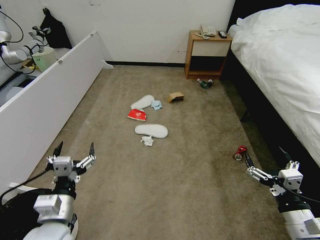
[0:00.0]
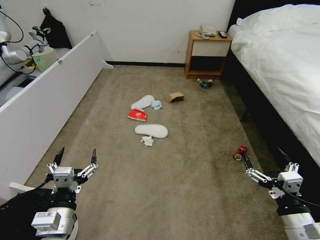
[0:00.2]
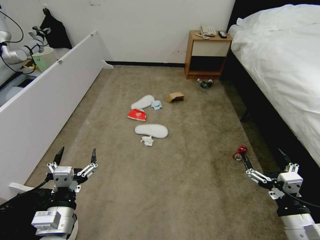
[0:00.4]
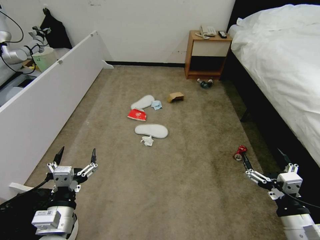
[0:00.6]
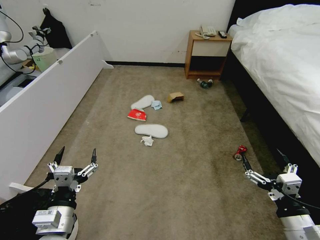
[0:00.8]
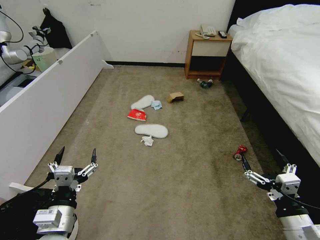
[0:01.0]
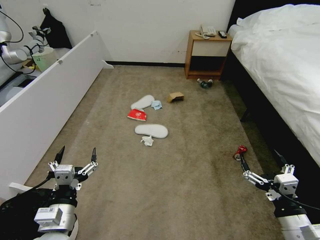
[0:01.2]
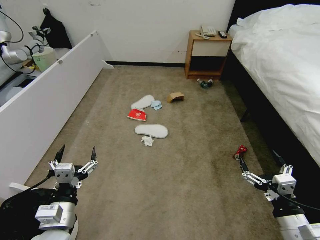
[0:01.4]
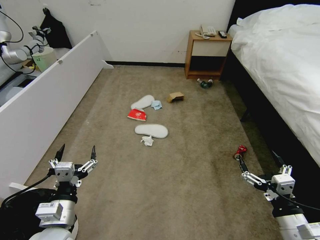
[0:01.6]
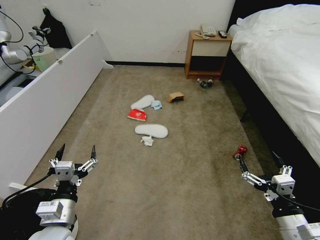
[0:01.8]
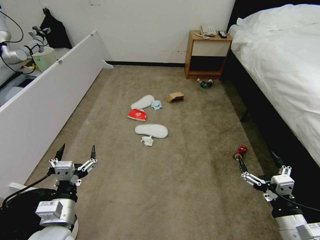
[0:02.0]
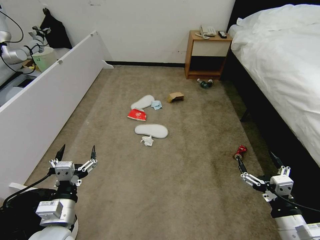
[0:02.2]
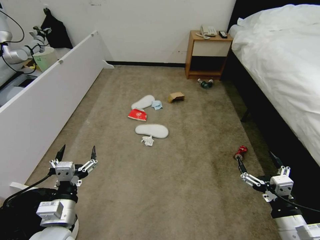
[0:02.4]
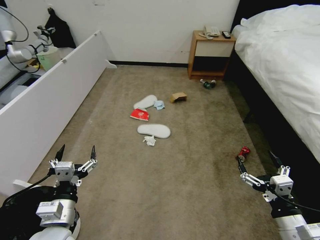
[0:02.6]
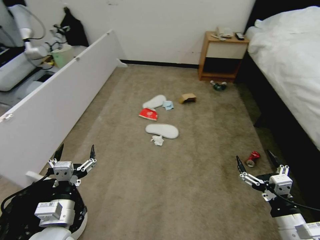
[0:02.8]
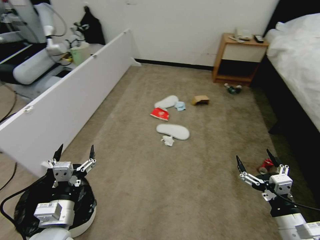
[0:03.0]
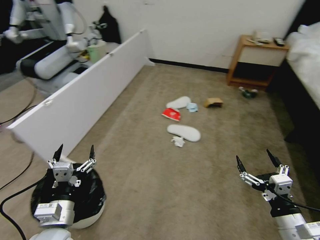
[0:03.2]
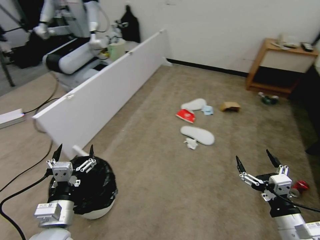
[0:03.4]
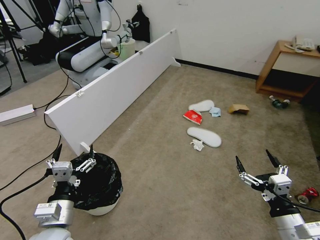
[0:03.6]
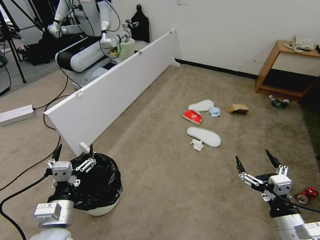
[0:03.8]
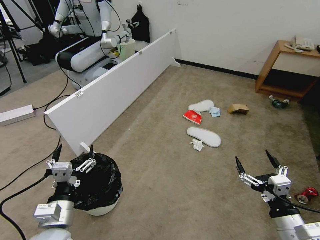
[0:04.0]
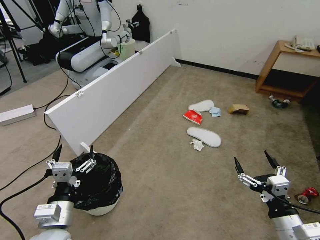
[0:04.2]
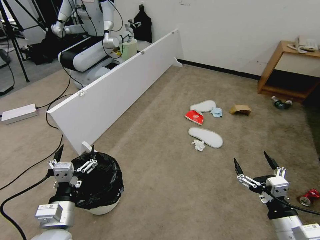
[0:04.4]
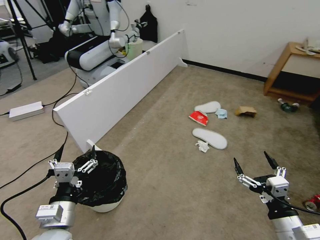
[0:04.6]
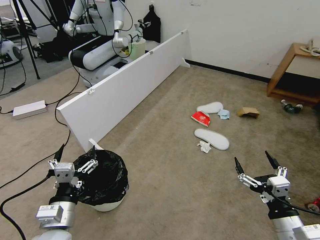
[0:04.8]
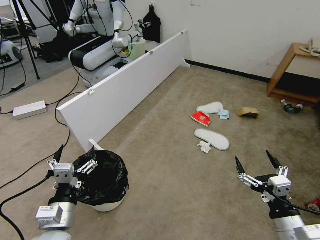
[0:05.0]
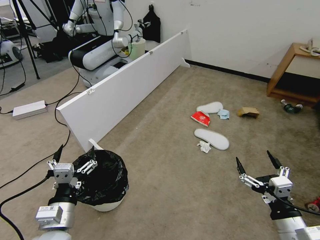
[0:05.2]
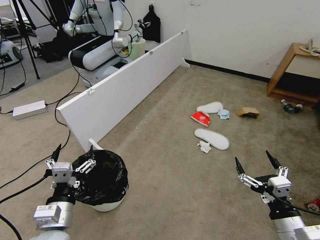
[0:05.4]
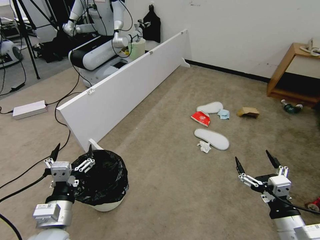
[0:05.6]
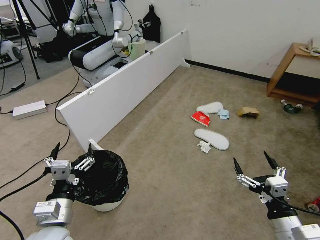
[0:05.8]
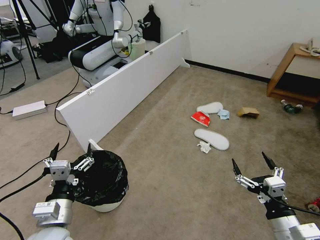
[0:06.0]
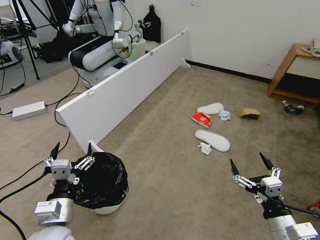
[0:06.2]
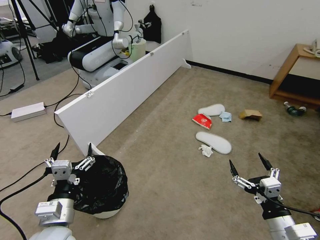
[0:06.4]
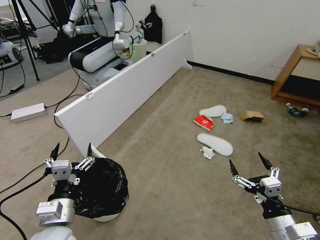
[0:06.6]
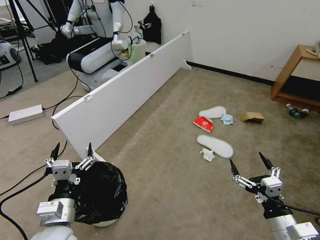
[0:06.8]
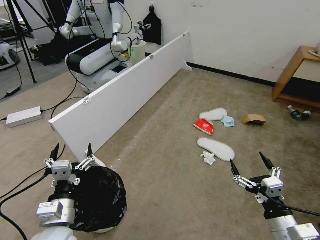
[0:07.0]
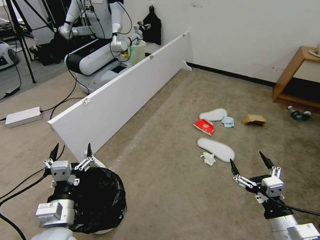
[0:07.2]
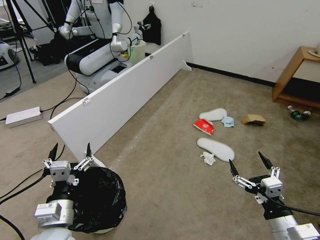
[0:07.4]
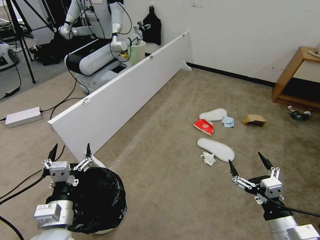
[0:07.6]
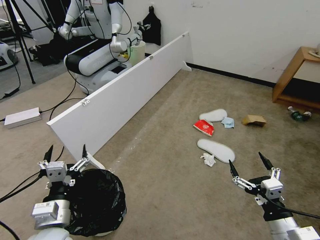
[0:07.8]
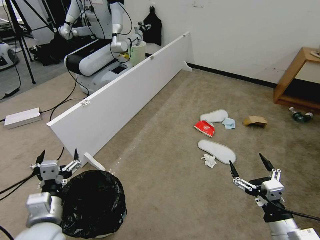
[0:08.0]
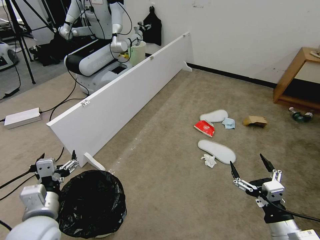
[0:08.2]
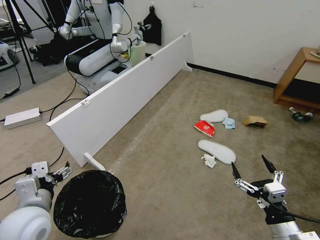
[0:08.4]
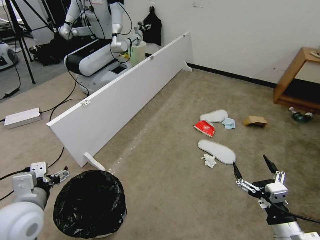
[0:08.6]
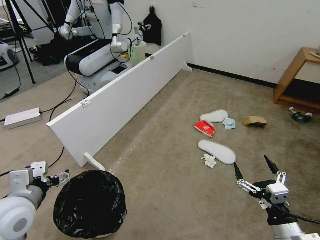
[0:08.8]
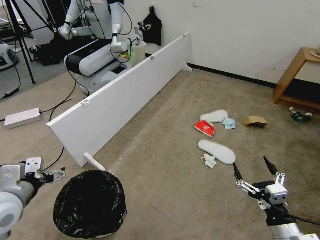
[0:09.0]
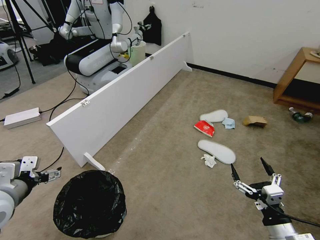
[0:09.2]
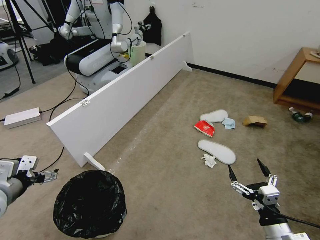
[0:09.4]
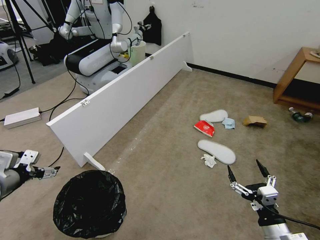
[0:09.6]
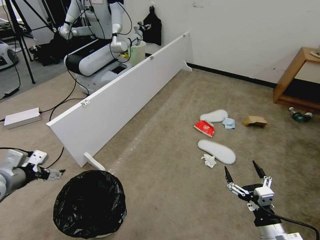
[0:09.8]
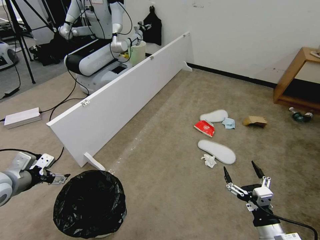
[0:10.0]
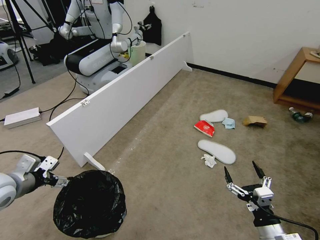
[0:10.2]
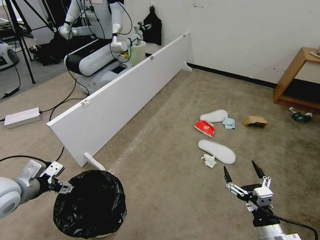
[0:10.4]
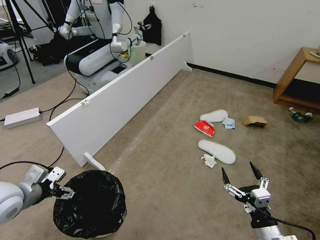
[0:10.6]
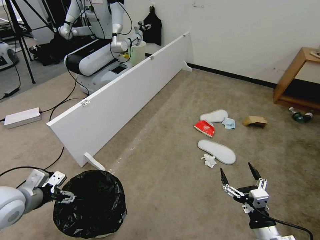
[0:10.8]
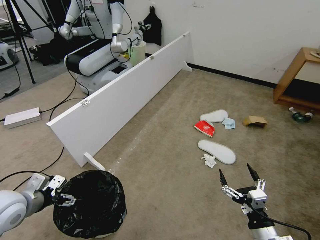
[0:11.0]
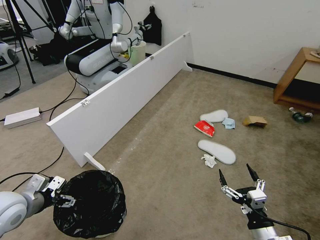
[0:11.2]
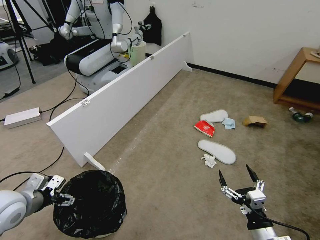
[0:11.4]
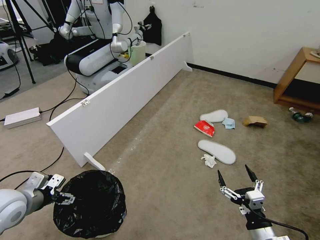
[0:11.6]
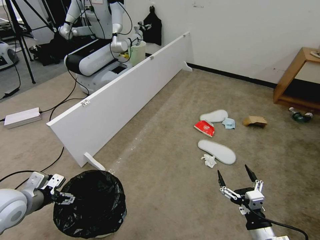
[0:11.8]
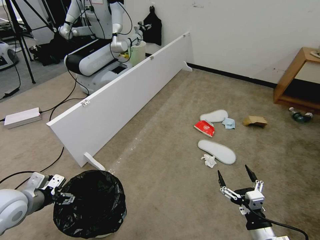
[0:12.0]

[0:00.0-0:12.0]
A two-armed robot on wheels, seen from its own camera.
Task of the whole recording: Pick up the trash bin, then pick up the garbage from the floor and place it into the trash bin.
0:07.6 to 0:09.0: The left gripper goes approximately 15 cm to the left, upward and forward.
0:09.0 to 0:10.4: The left gripper changes place by about 5 cm.
0:10.4 to 0:12.0: The left gripper heads downward, covering about 5 cm.

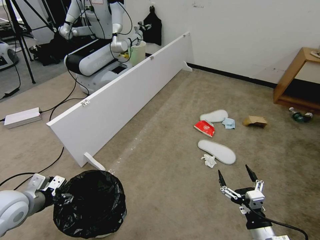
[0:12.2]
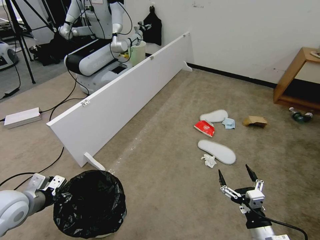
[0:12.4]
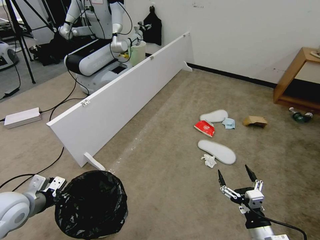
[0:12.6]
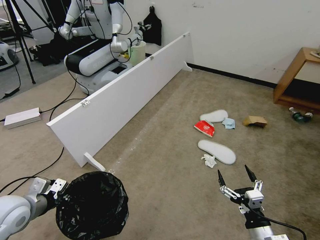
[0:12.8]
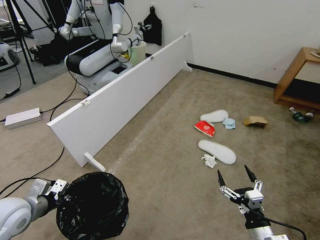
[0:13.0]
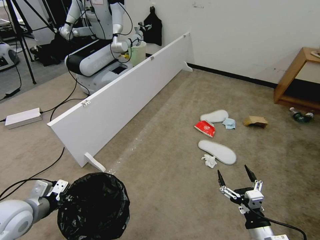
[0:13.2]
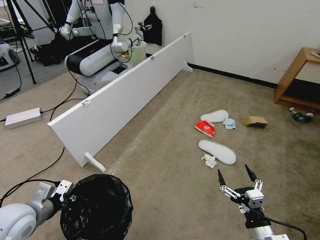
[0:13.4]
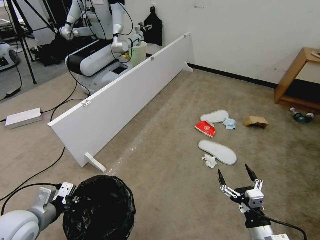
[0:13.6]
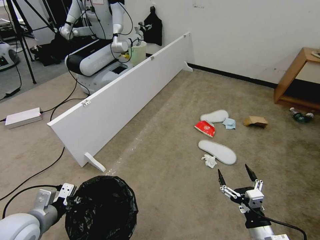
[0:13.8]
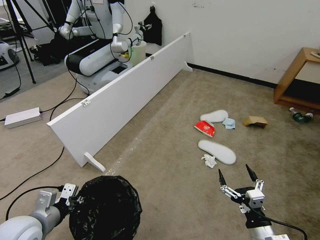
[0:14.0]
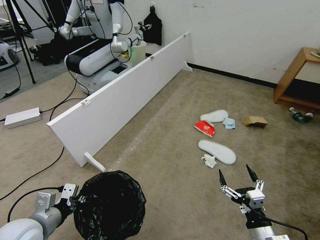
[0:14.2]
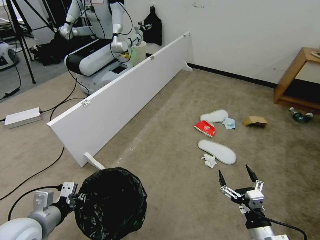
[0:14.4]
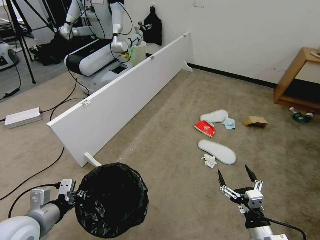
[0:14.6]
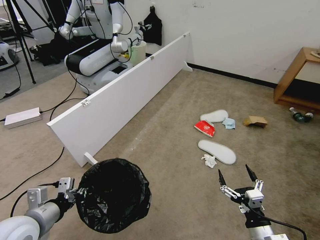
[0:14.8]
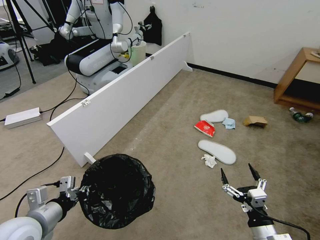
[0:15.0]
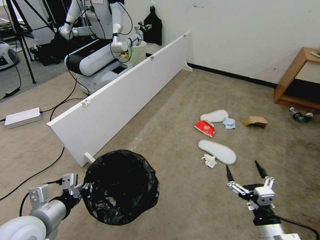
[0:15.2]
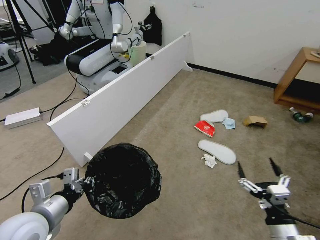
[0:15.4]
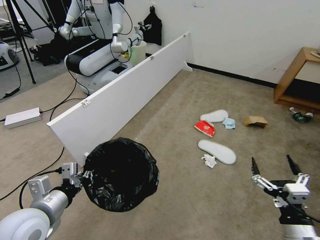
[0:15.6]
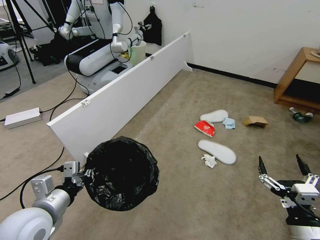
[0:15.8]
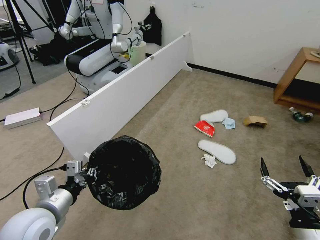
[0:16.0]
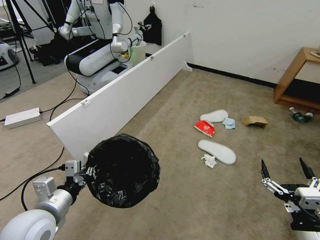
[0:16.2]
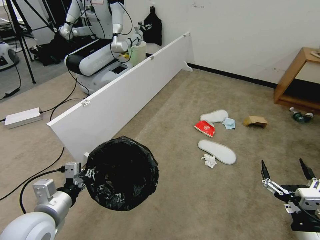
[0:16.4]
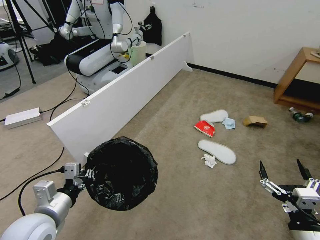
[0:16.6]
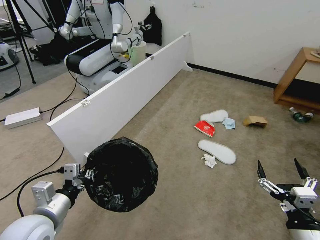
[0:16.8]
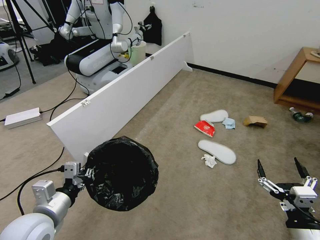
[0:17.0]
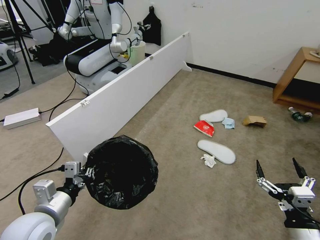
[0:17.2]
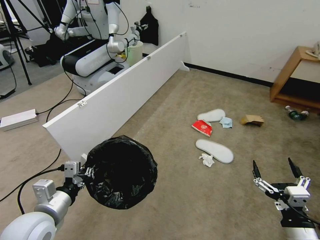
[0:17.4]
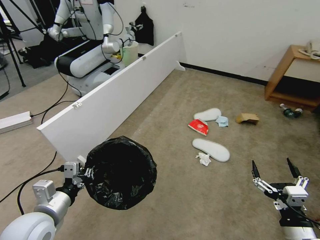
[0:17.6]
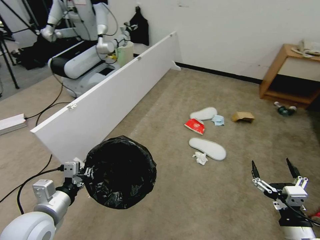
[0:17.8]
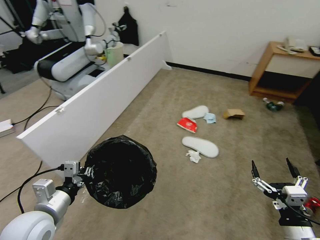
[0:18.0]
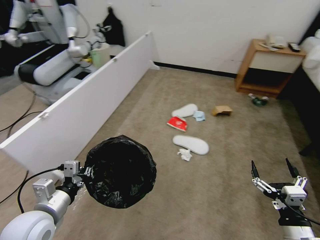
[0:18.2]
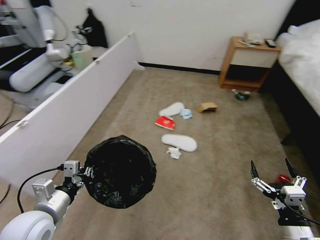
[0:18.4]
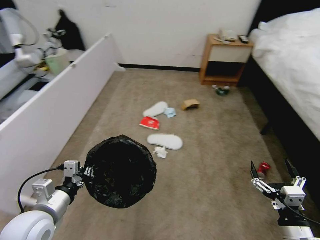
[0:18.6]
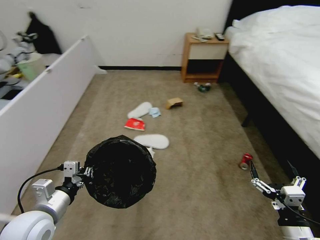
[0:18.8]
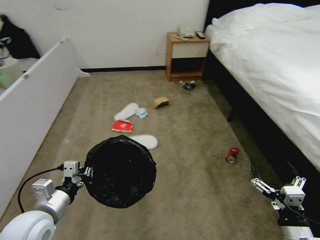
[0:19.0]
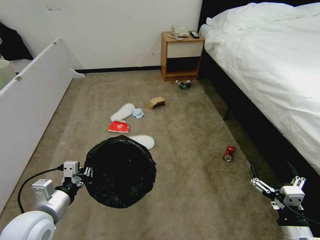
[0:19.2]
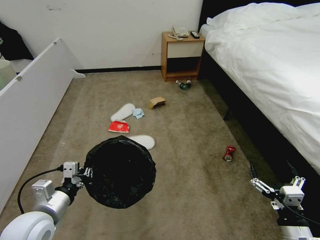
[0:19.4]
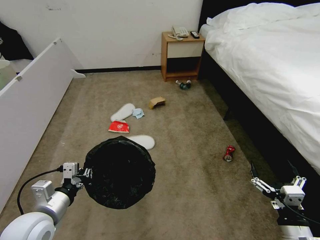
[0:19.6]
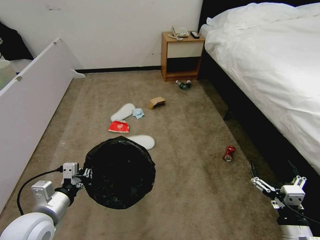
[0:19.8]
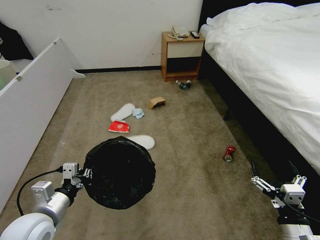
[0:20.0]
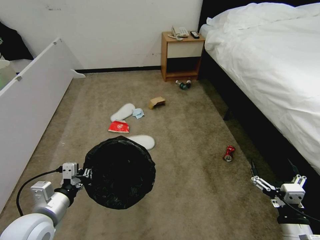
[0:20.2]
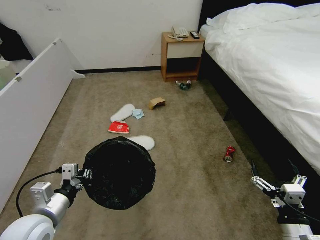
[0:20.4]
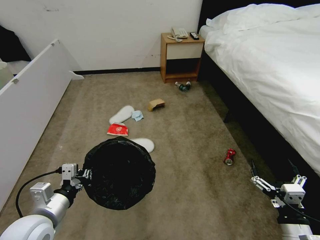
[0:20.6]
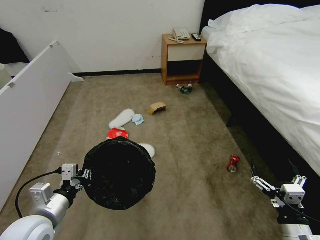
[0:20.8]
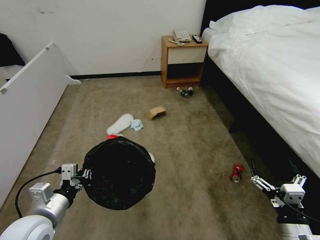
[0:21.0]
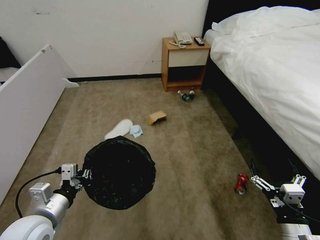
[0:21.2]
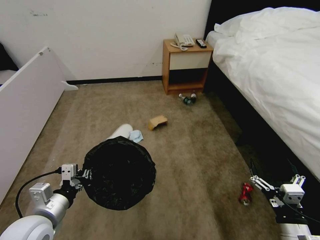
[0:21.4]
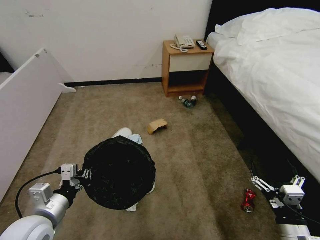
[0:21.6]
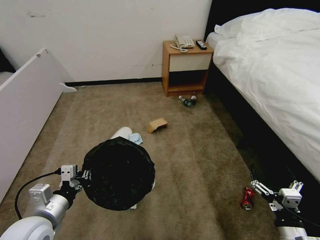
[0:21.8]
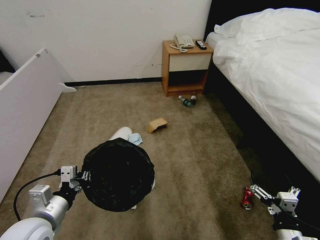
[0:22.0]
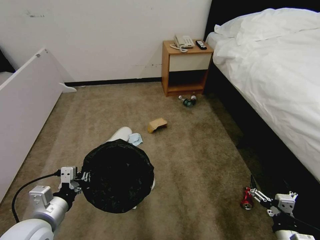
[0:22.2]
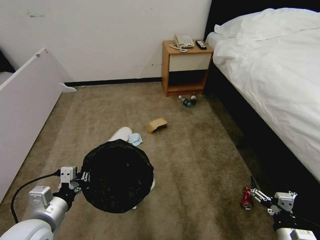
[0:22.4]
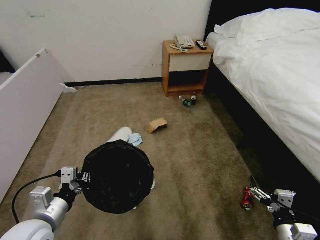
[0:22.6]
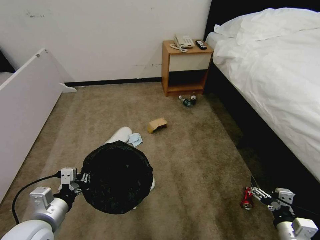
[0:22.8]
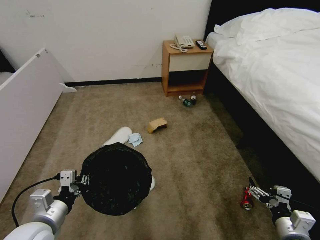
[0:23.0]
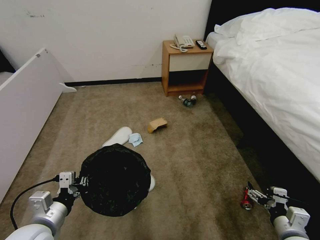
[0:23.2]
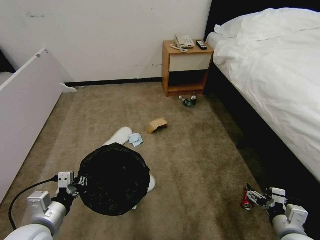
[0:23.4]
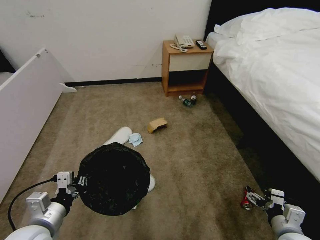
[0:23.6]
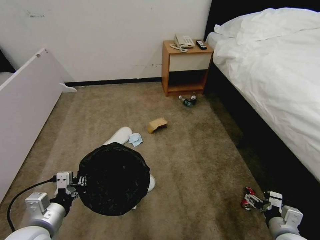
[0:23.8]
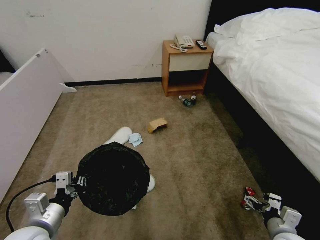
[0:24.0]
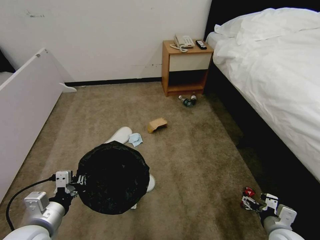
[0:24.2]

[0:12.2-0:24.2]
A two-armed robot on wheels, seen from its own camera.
Task of the whole recording: Pick up the trash bin, then pick up the garbage from the floor and place it into the trash bin.
0:12.2 to 0:13.8: The left gripper shifts approximately 5 cm backward, and closes up.
0:13.8 to 0:15.2: The left gripper shifts by approximately 5 cm.
0:15.2 to 0:16.6: The right gripper ends up some 5 cm from where it was.
0:21.2 to 0:22.6: The right gripper ends up roughly 5 cm from where it was.
0:22.6 to 0:24.2: The right gripper ends up roughly 5 cm from where it was.
